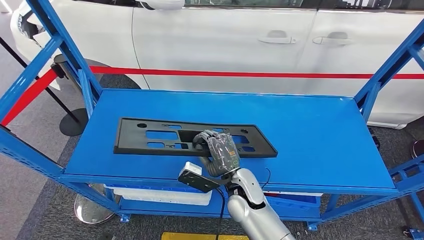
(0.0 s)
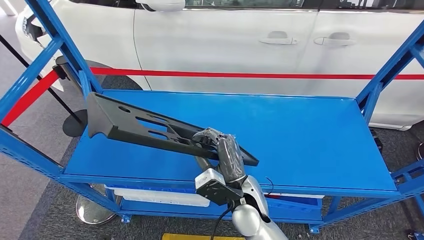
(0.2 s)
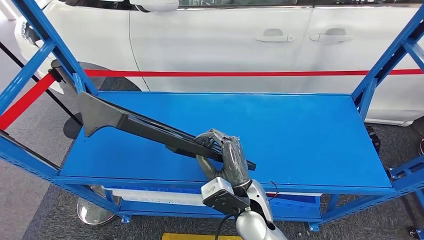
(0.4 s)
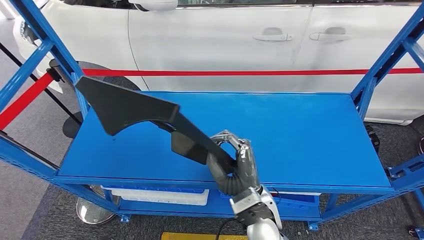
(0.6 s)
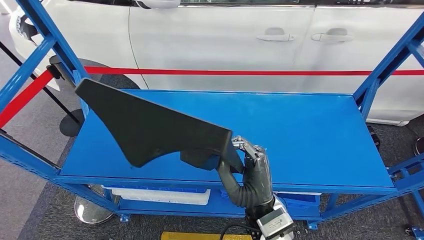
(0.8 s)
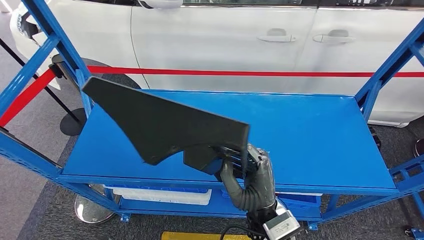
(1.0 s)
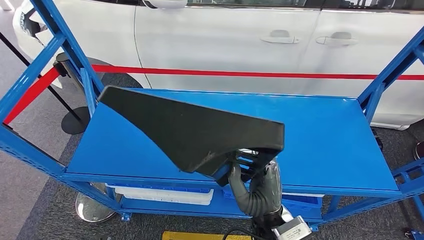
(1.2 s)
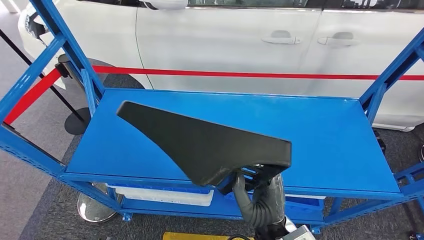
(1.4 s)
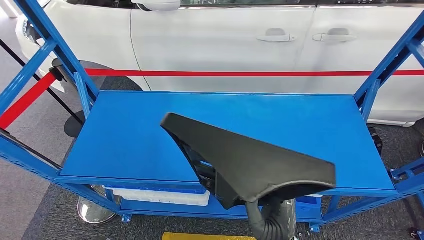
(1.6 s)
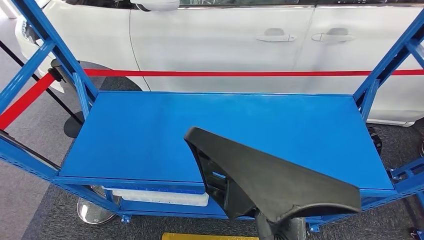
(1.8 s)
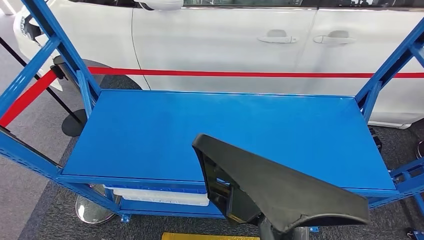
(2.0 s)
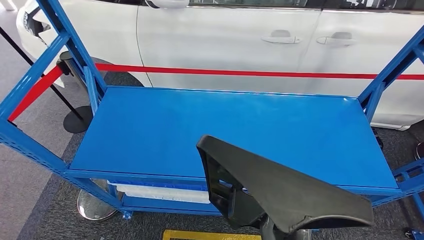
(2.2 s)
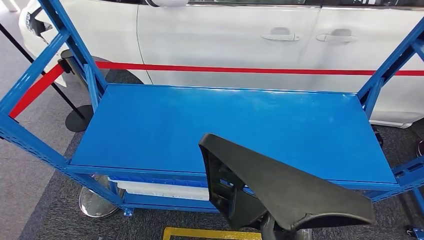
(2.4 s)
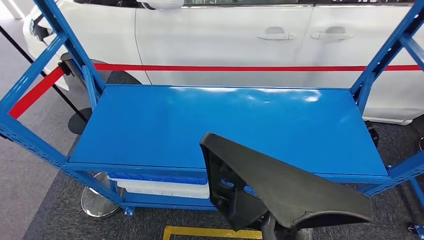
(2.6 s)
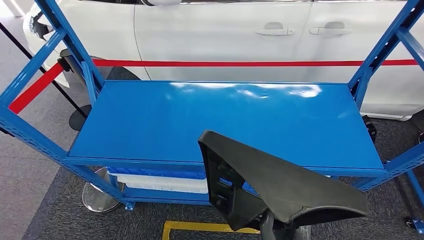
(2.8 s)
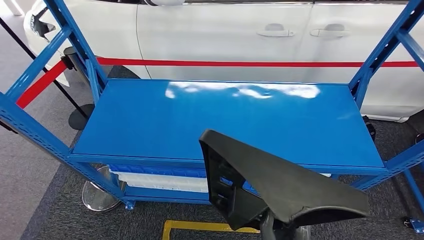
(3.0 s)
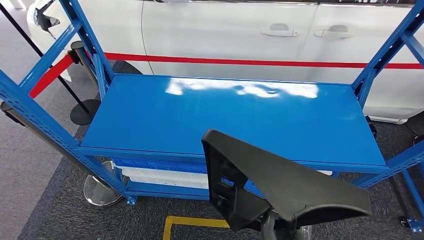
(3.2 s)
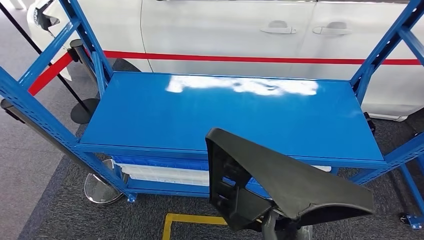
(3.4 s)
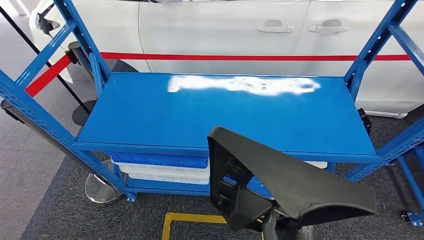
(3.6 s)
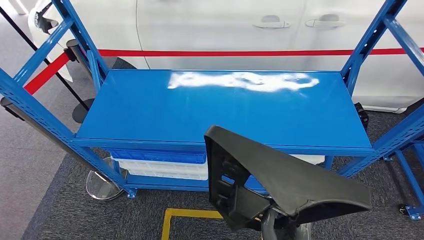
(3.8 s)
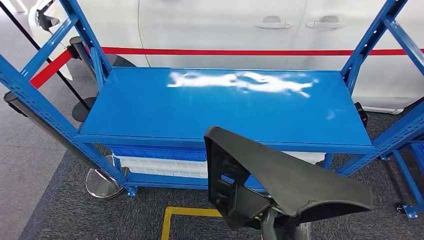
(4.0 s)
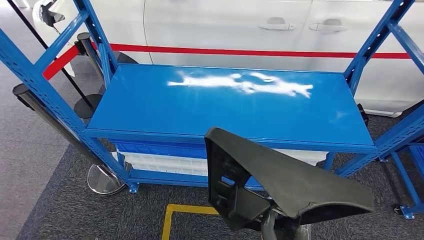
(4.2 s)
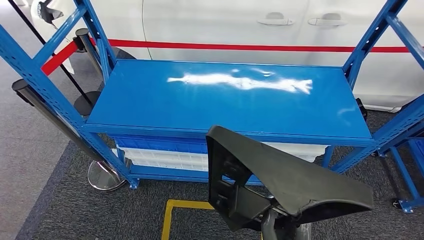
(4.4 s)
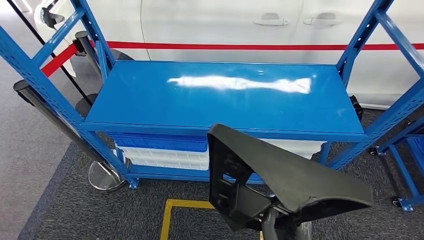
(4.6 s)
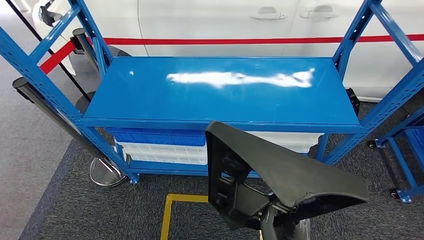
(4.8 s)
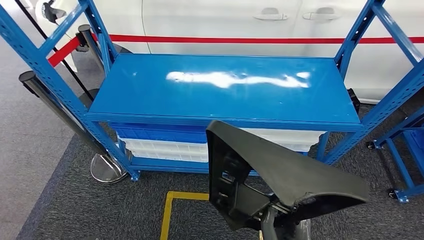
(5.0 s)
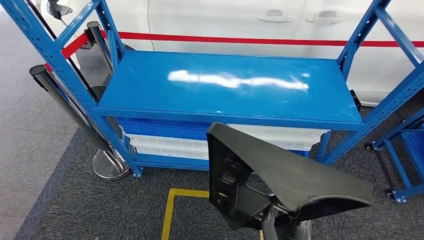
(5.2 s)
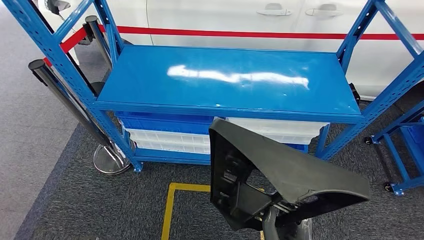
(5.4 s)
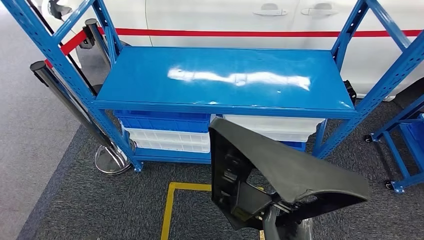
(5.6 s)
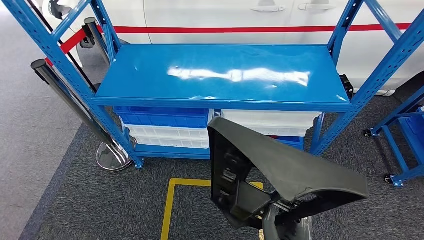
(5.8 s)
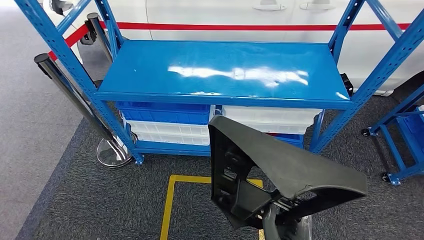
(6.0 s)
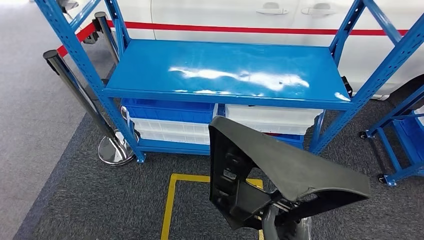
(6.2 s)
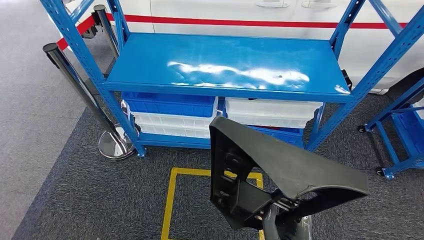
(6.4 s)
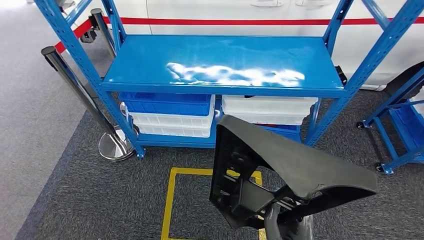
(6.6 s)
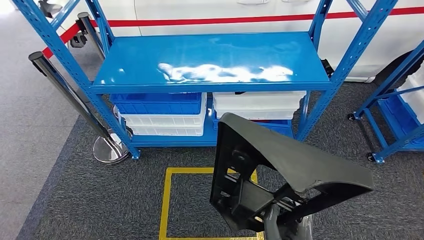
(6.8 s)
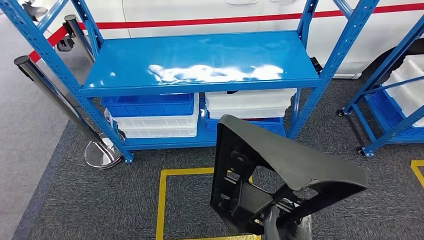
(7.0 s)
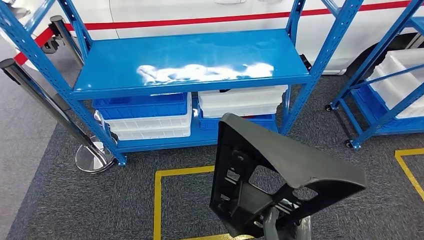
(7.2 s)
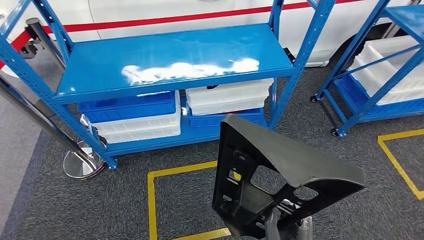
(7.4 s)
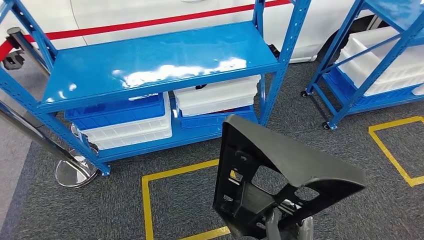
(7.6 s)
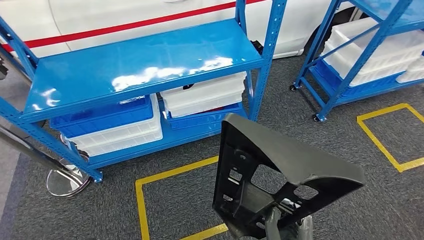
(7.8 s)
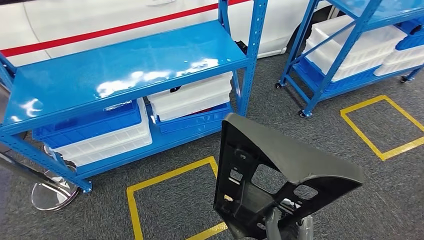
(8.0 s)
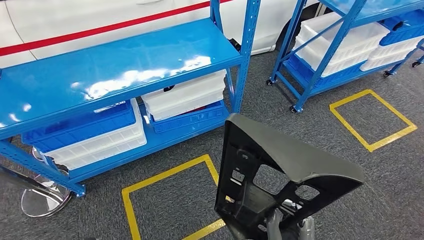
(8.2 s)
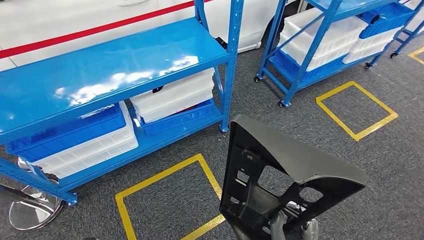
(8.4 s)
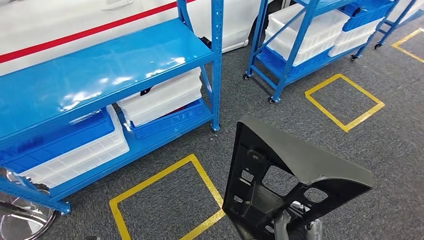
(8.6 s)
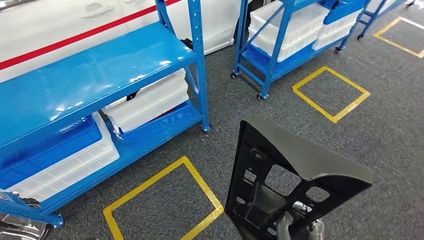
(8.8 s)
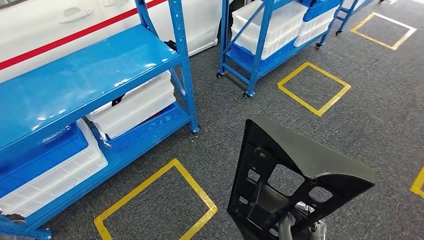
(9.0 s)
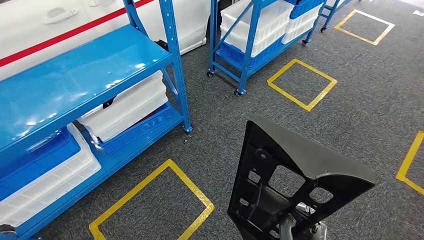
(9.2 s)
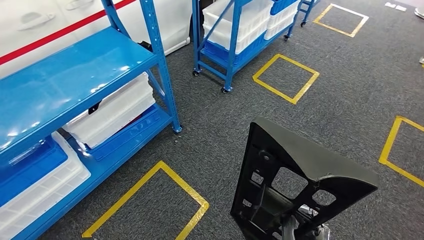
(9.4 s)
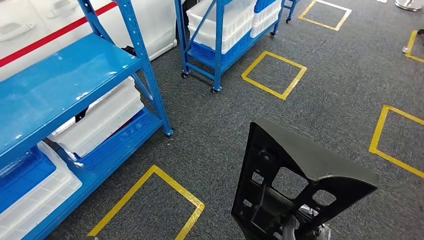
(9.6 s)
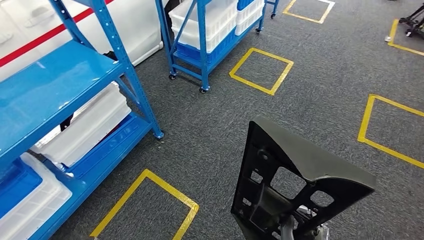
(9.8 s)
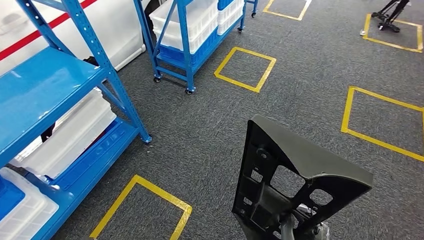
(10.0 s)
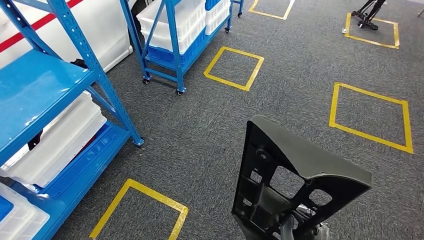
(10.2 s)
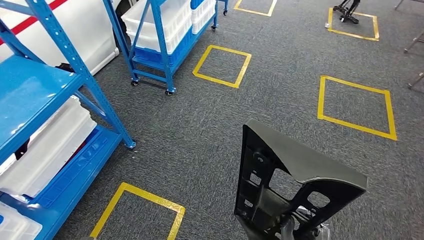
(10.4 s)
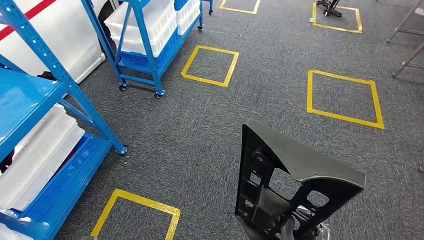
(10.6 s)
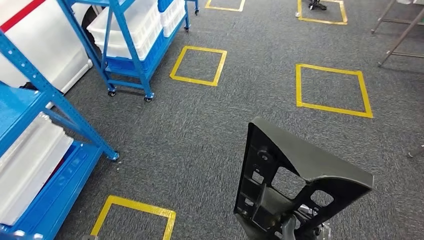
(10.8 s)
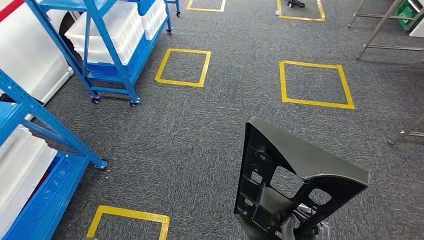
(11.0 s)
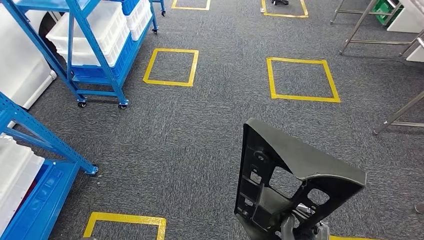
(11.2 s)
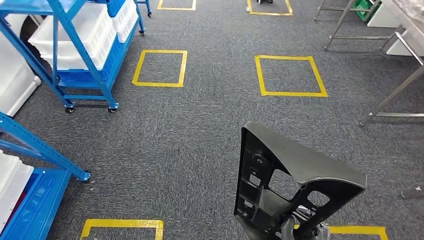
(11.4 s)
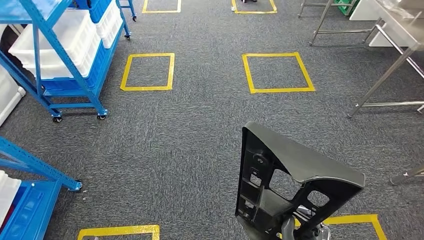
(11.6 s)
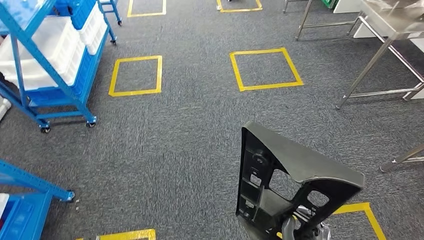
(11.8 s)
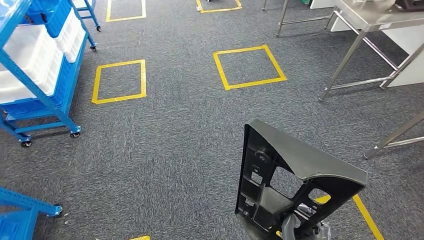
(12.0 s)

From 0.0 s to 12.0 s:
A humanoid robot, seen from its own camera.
Step, from 0.0 s to 2.4 s: Pick up the large material from the shelf.

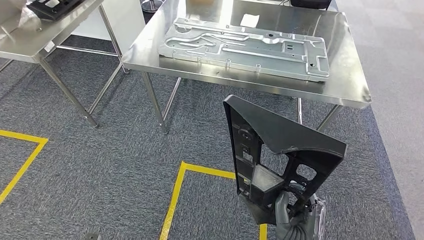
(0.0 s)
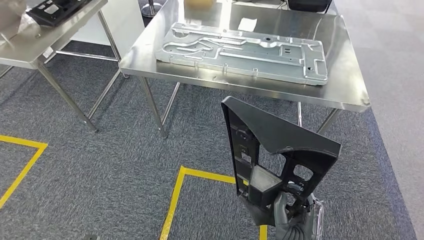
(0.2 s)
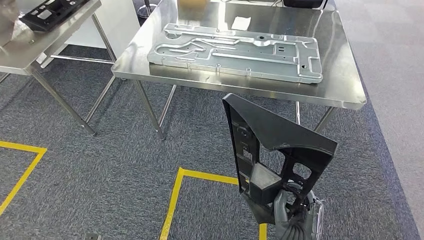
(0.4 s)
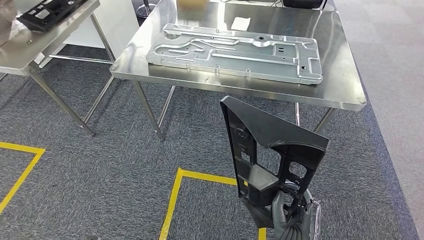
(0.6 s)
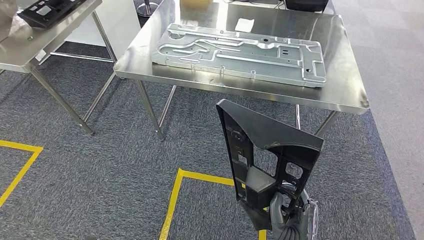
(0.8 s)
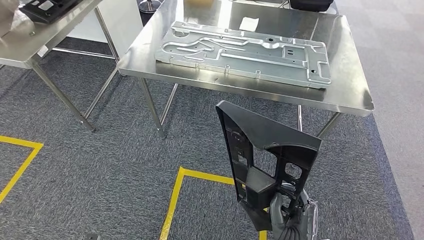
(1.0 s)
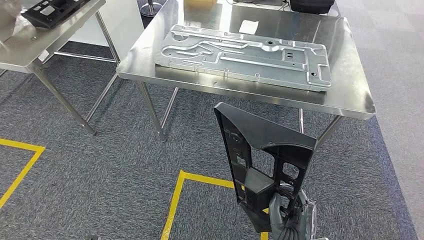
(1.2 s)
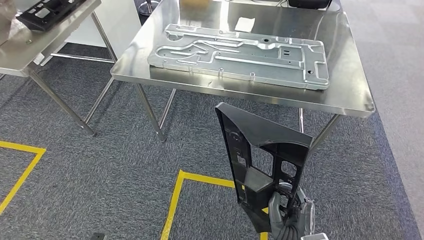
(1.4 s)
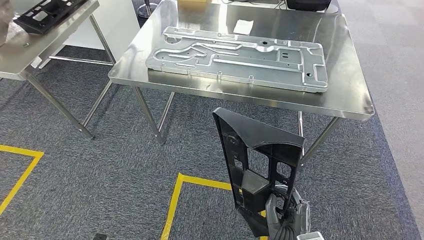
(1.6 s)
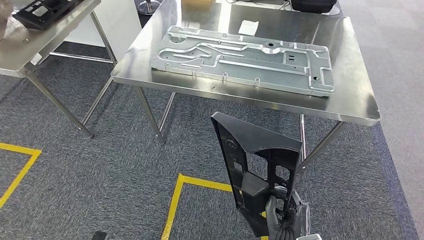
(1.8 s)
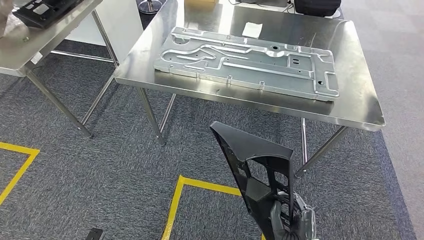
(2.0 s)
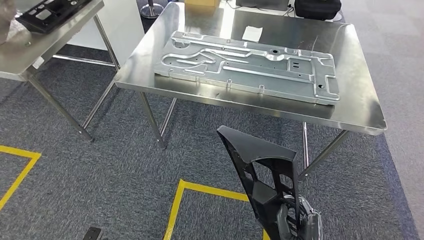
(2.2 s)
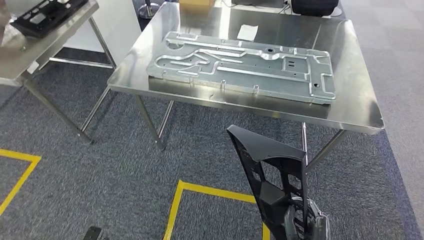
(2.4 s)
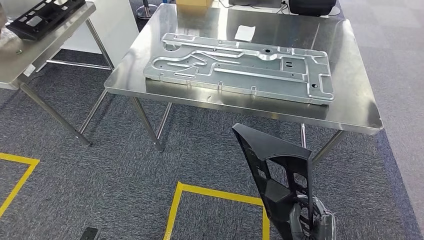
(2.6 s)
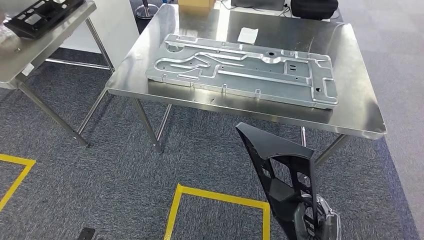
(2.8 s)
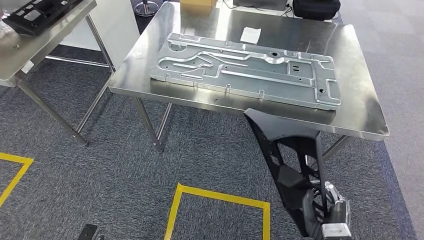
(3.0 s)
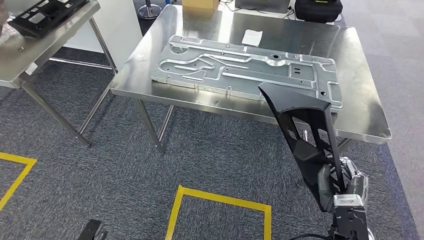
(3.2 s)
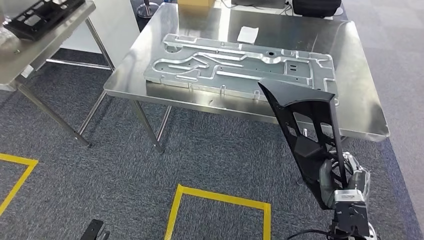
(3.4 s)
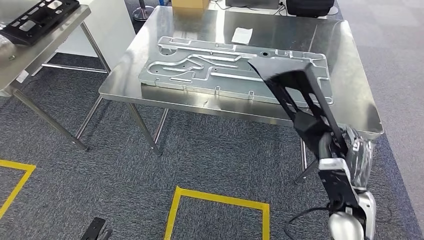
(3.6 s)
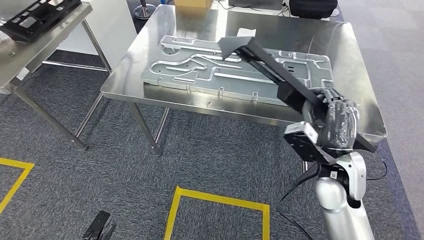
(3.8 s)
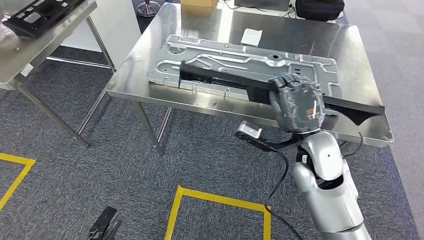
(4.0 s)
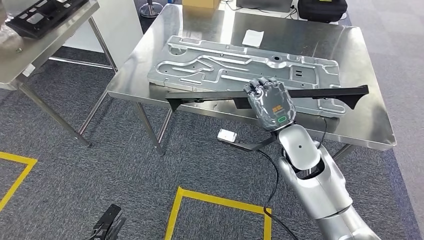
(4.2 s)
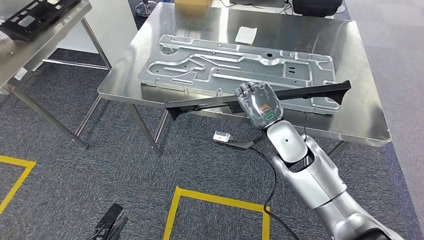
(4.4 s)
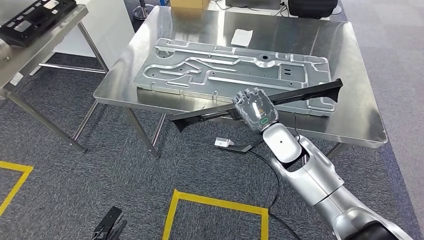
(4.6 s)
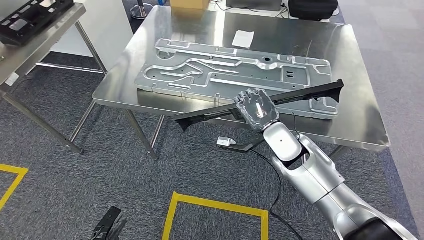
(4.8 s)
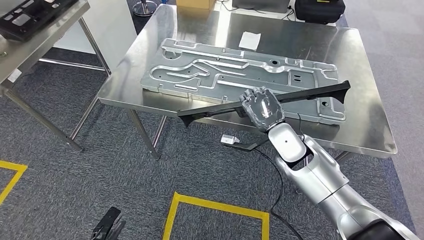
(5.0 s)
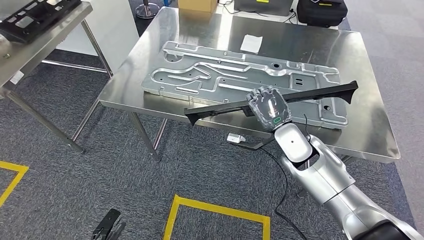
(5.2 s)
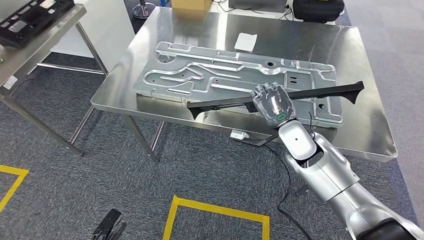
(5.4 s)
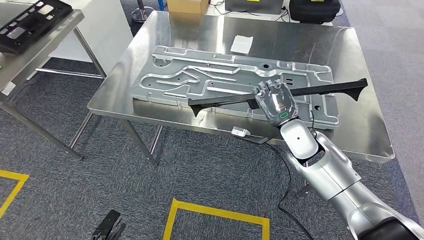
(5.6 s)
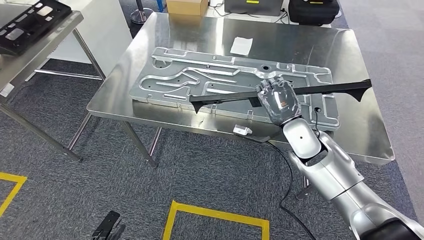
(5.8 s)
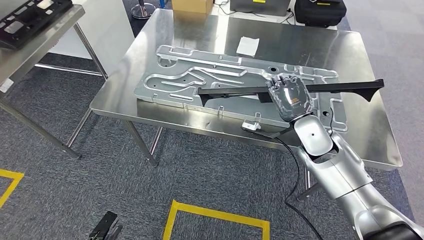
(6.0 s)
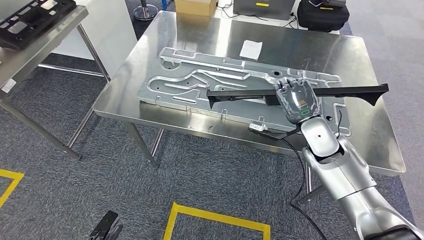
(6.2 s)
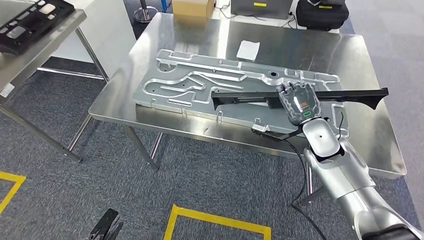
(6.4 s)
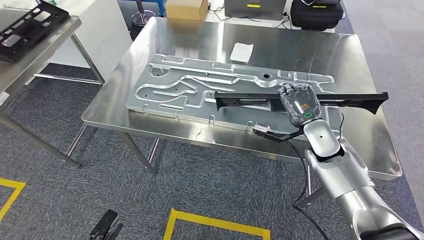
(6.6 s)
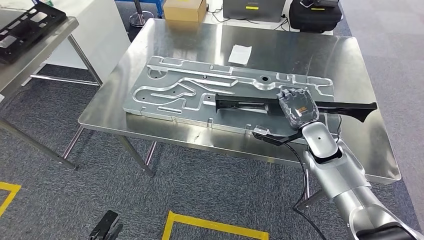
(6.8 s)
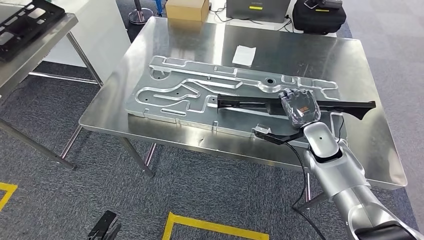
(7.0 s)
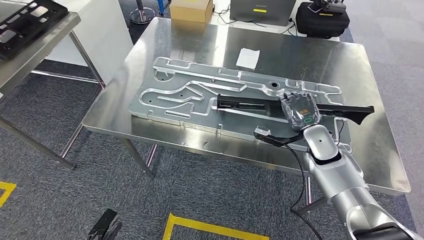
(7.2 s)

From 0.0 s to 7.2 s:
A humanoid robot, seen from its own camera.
Step, from 0.0 s to 3.8 s: Move the large material to the workbench.
